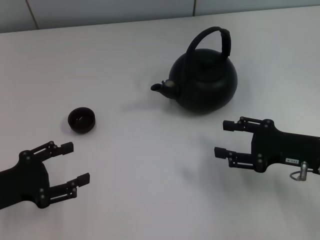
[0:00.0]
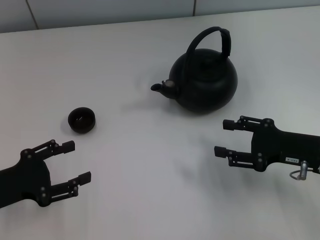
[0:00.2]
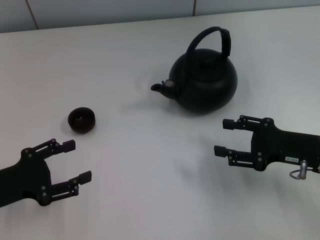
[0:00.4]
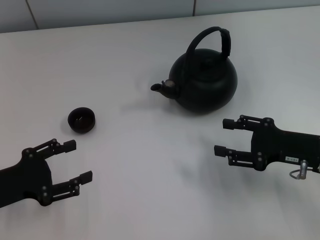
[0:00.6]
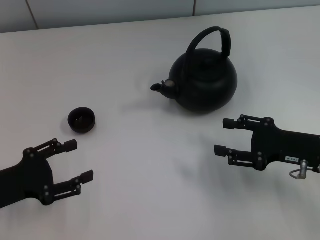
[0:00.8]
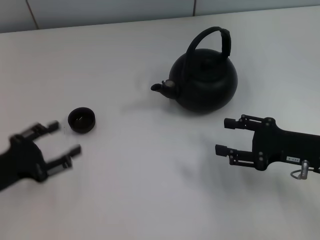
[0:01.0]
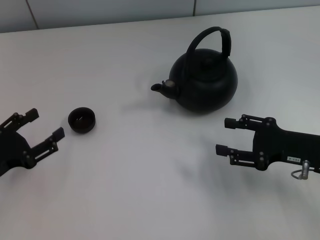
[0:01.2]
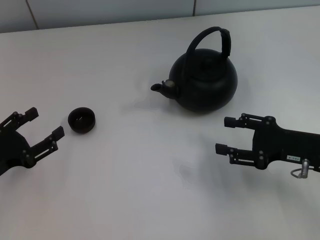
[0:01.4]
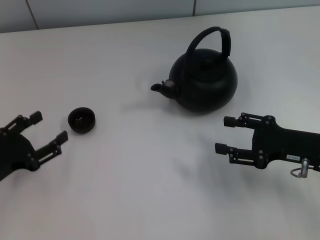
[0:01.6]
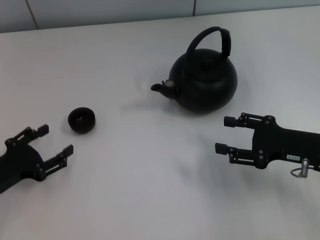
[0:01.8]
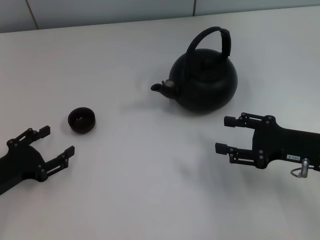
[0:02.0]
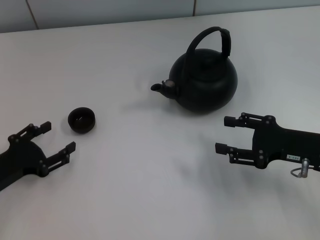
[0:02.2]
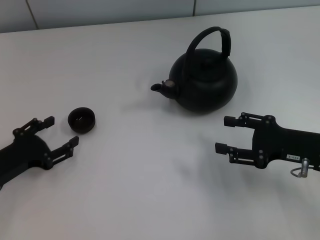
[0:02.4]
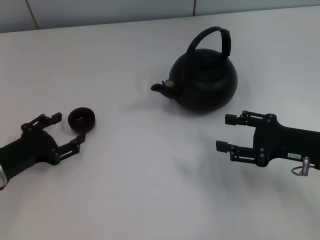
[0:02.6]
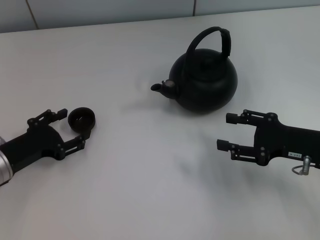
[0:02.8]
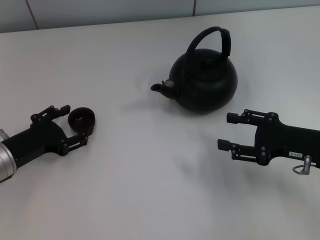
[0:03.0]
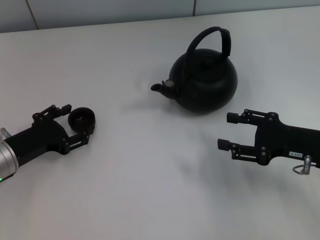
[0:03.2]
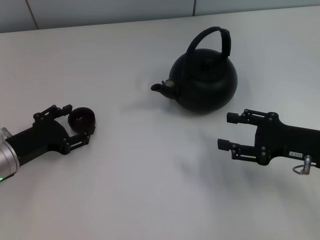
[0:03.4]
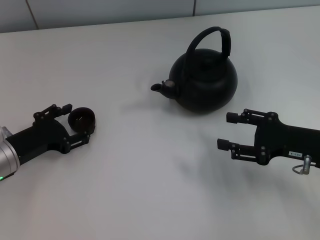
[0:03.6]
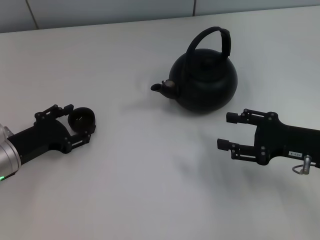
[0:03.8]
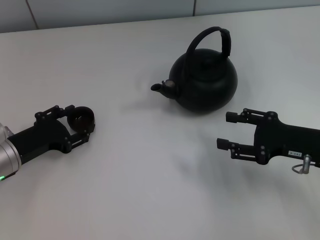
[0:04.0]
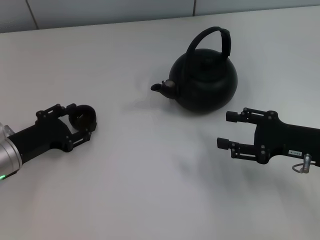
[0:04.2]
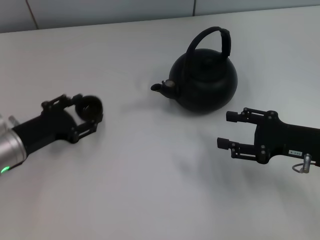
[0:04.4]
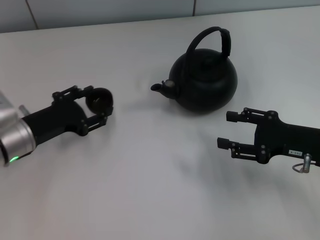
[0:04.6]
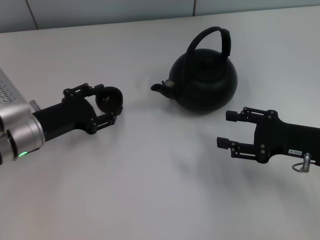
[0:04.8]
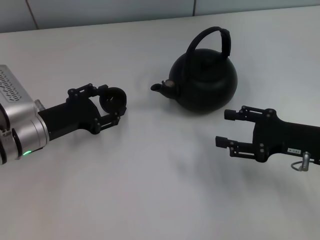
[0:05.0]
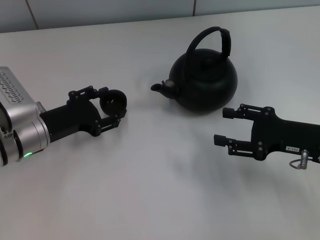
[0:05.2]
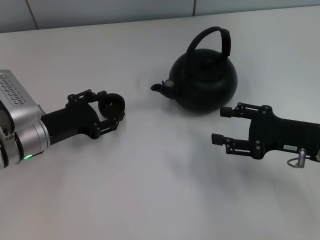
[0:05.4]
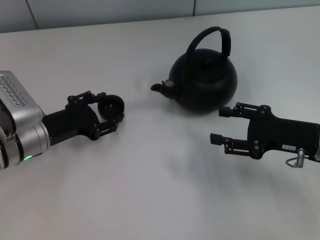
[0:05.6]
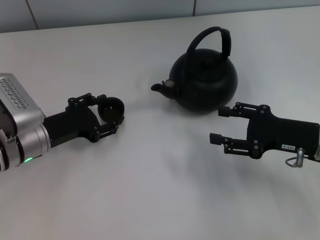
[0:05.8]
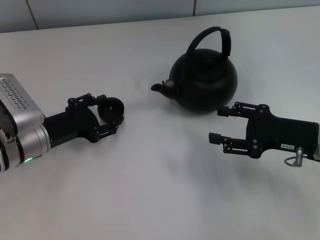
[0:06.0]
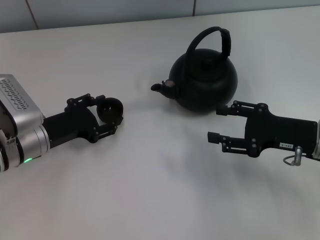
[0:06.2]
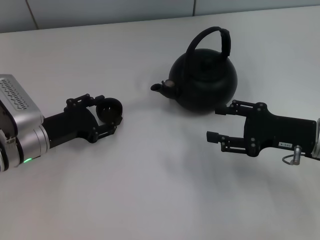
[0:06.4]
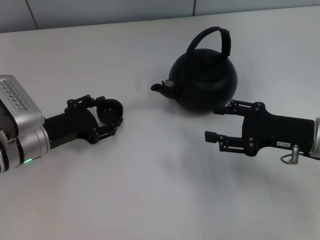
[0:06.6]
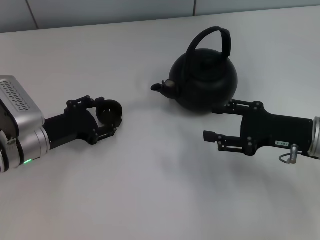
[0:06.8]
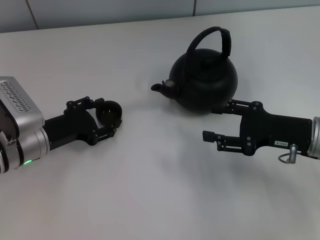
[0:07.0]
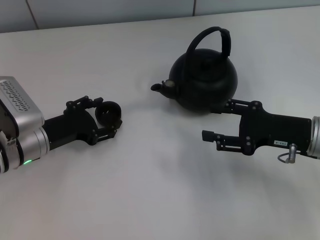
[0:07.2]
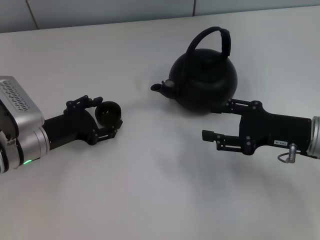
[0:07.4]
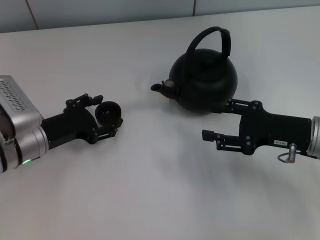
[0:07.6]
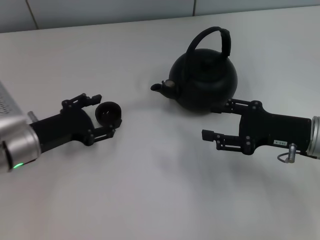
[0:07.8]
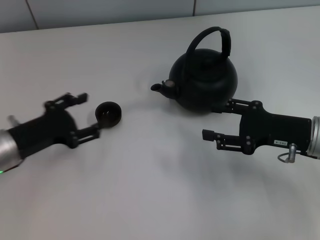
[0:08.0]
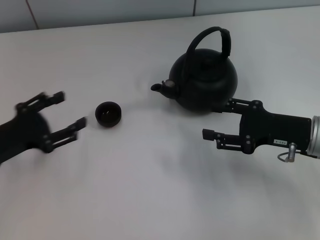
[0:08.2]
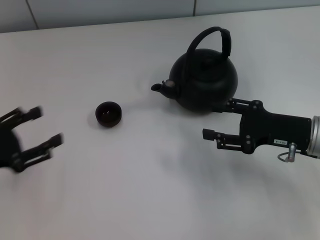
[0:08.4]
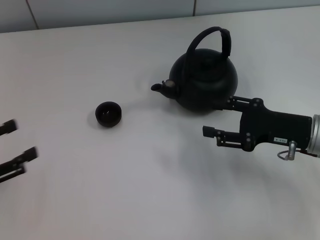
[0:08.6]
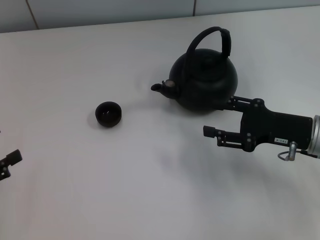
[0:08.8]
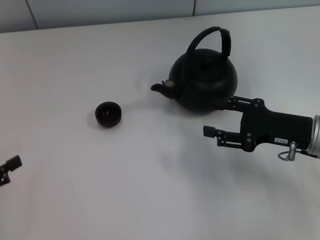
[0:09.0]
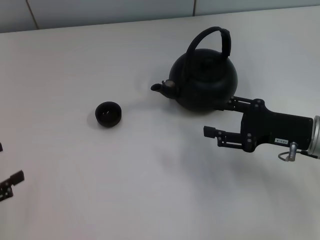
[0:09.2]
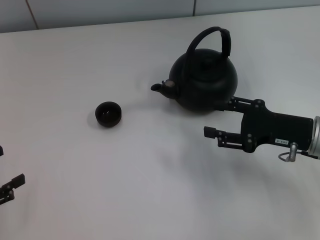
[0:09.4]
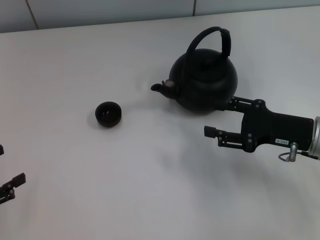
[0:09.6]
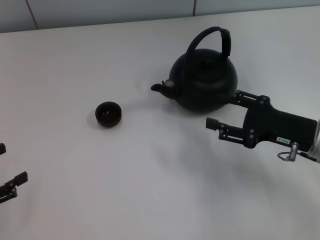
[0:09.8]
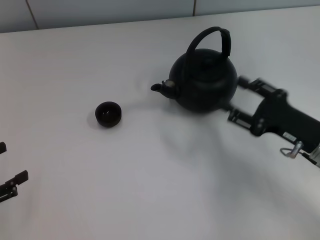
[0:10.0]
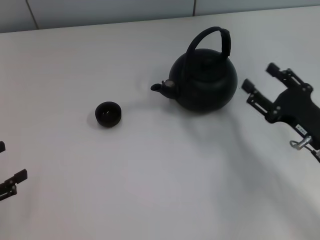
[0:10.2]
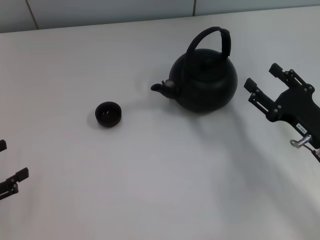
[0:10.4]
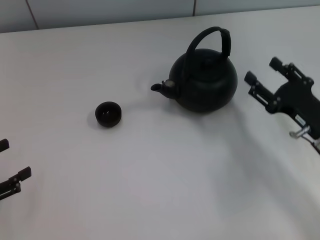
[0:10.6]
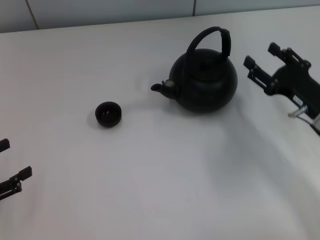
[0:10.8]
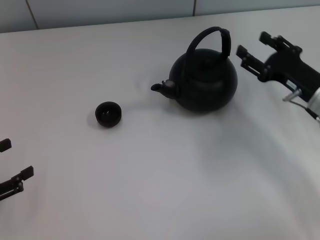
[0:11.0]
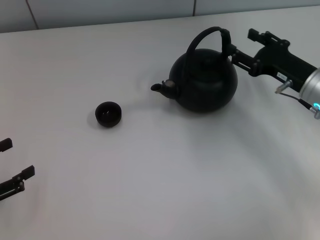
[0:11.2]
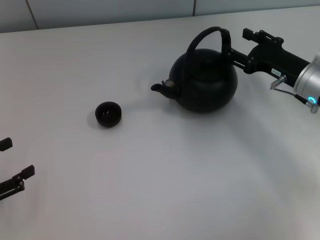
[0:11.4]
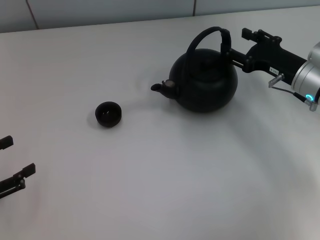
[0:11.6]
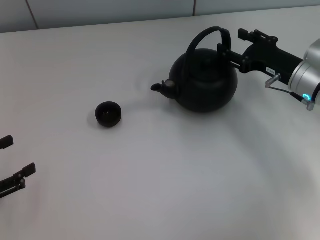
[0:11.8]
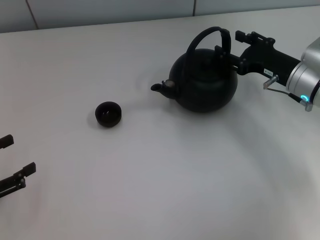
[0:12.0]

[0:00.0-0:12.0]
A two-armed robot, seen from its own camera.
Task of the whole recording: Grasp the handle of the teapot with one hand and pour tea into the teacup.
Step, 0:00.0 to 0:04.6: Pick up the teacup with the left gripper.
Step, 0:04.8 to 0:07.8: Place the teacup in the center of view with the left gripper.
0:01.6 to 0:03.0: The left gripper travels forward by some 5 cm.
0:03.0 to 0:04.4: The grippers make only small movements.
0:04.4 to 0:06.0: There are only small adjustments of the grippers.
0:06.0 to 0:07.6: Both grippers stay put.
0:07.6 to 0:09.0: The left gripper shifts about 20 cm to the left and backward.
0:09.0 to 0:10.4: The right gripper shifts by roughly 5 cm.
0:10.4 to 0:12.0: The right gripper goes about 10 cm forward.

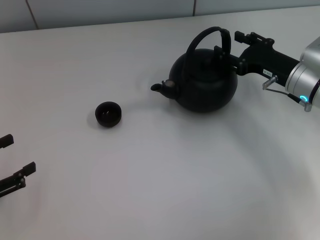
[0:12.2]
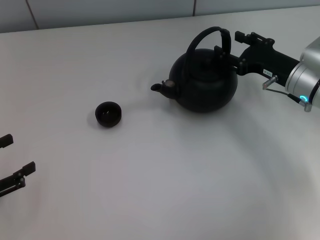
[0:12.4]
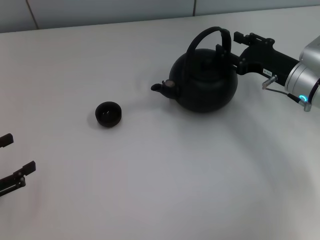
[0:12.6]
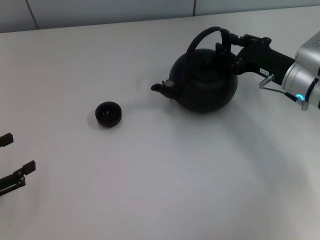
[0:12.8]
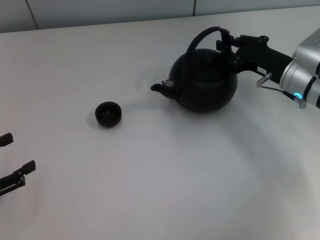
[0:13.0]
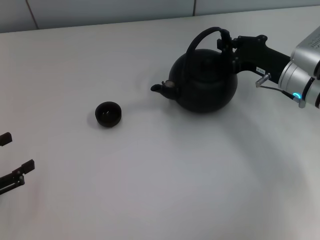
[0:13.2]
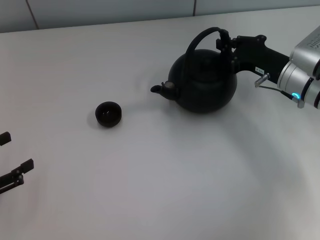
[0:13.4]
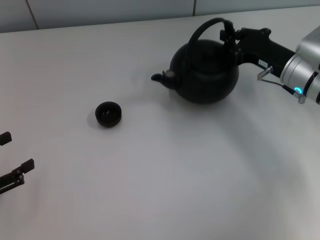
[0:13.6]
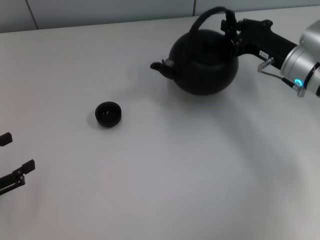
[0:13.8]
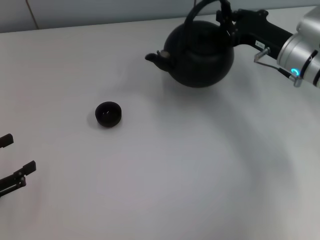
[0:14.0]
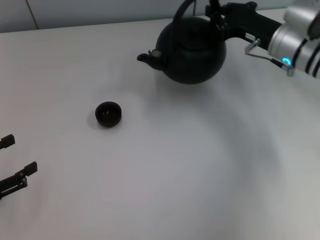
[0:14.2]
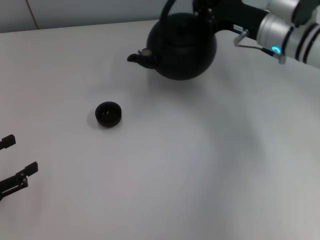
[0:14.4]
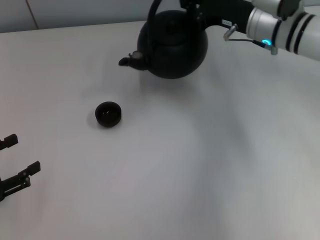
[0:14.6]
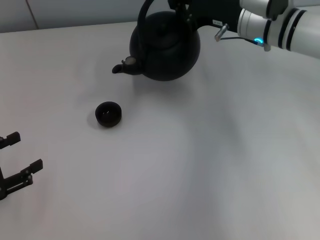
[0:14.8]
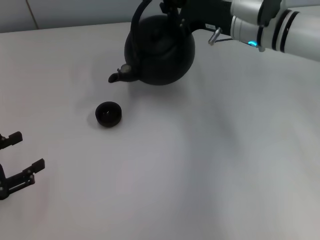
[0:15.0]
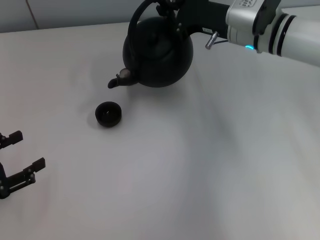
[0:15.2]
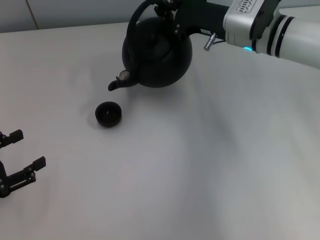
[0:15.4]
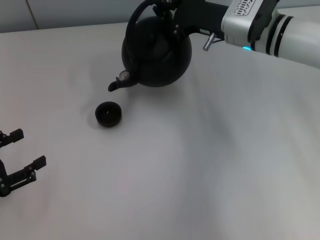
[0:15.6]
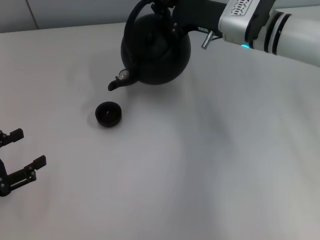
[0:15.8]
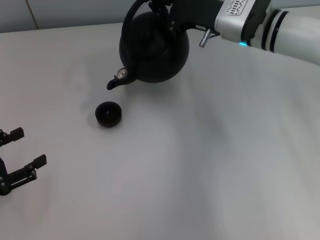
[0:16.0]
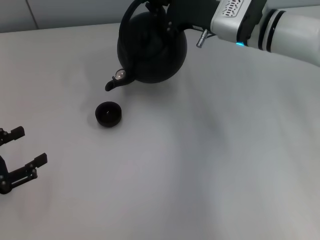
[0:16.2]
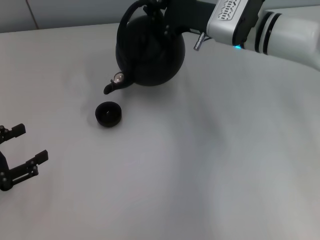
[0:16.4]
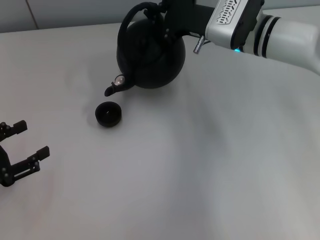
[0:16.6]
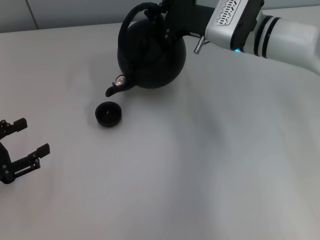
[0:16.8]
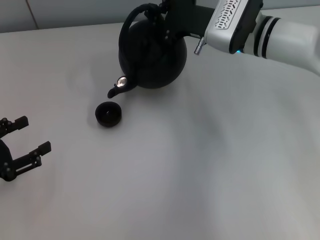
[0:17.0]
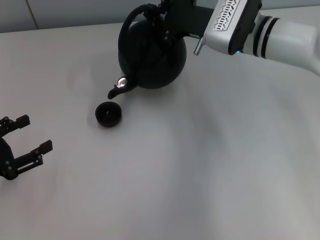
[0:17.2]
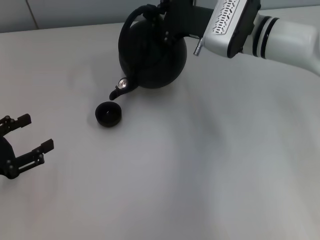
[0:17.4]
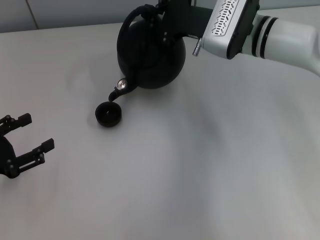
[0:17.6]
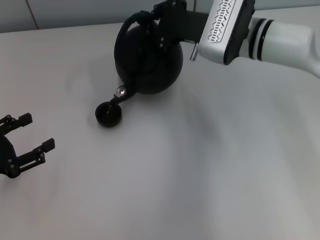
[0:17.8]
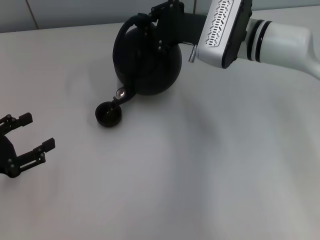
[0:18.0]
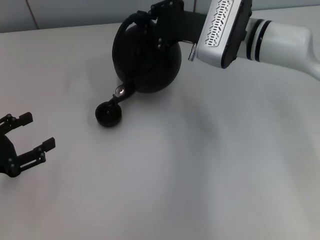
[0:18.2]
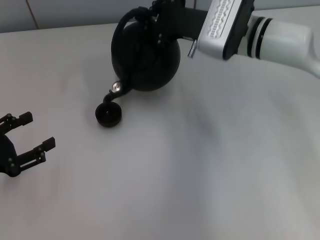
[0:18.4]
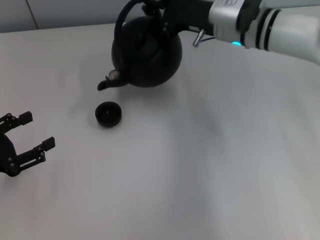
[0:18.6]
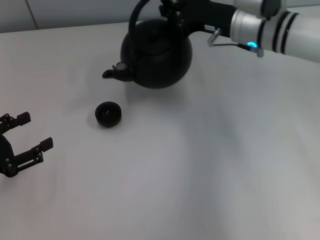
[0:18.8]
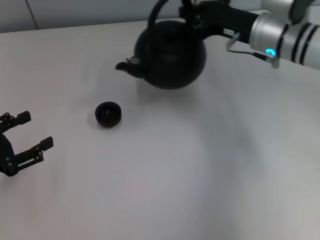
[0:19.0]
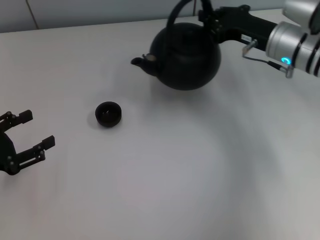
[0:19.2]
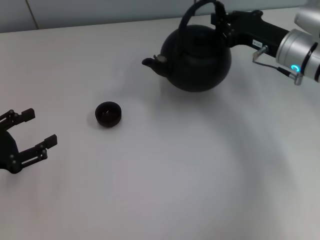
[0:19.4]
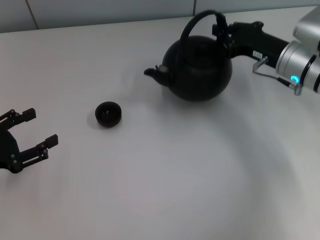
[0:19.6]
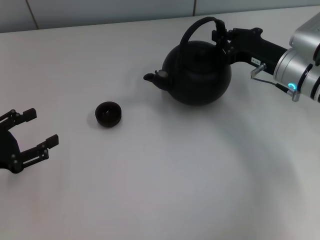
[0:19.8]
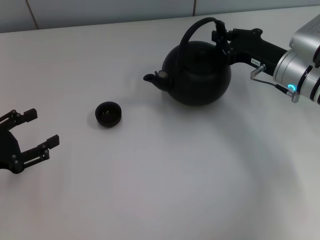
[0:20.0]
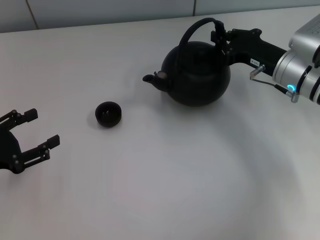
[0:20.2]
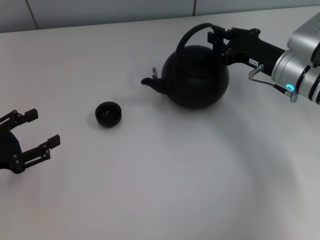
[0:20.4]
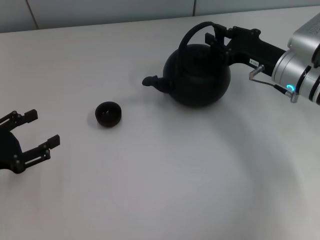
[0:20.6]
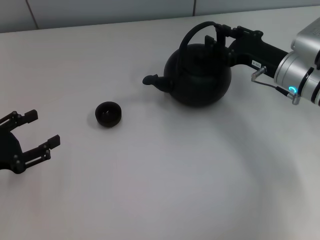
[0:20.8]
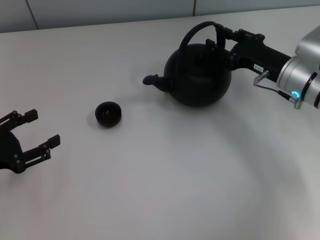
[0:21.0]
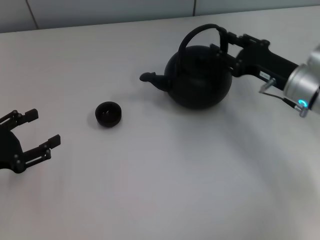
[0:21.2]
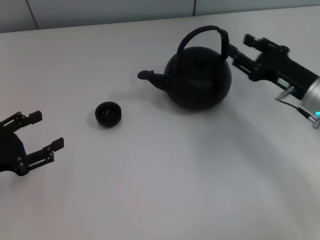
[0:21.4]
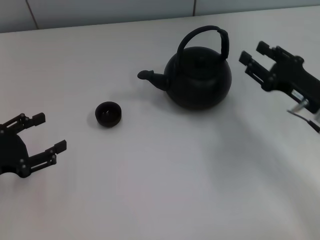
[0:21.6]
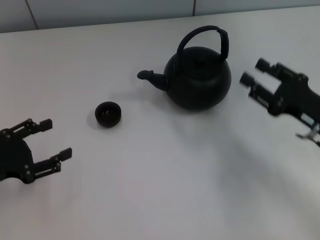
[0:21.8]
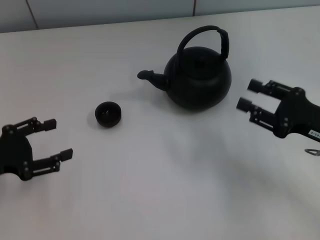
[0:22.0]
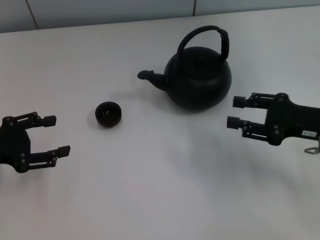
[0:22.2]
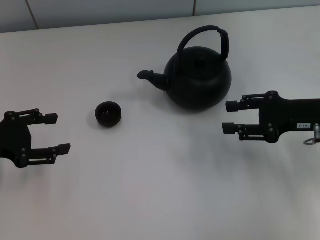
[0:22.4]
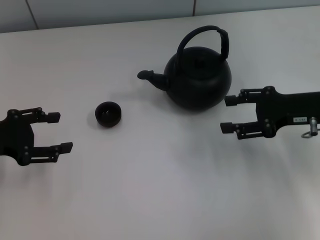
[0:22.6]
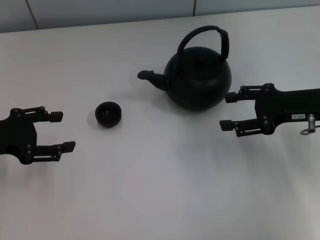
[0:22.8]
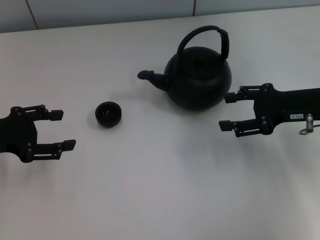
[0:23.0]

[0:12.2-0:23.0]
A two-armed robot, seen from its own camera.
Task of the whole recording: Grasp the handle of the teapot with one hand and pour tea into the teacup.
Step, 0:19.2 to 0:21.4: Put down the teapot with the right gripper.
0:12.2 to 0:13.8: The right gripper closes its fingers.
0:13.8 to 0:15.2: The right gripper travels to the left, forward and upward by some 10 cm.
0:15.2 to 0:18.4: The grippers stay close to where they were, moving slightly.
0:18.4 to 0:20.0: The right gripper heads to the right, backward and downward, covering roughly 15 cm.
0:20.0 to 0:21.4: The right gripper is displaced backward by approximately 5 cm, and opens its fingers.
0:21.4 to 0:23.0: The left gripper is displaced forward by approximately 5 cm.
